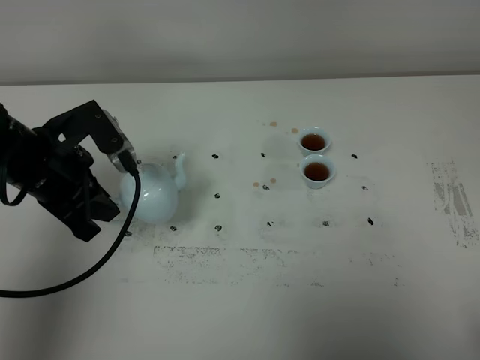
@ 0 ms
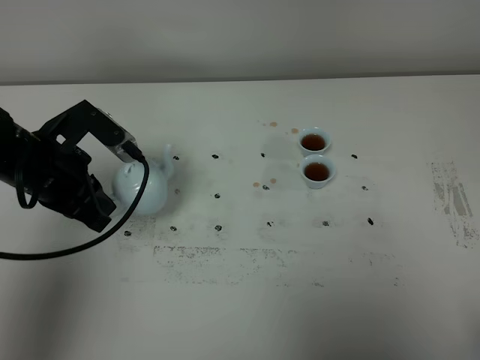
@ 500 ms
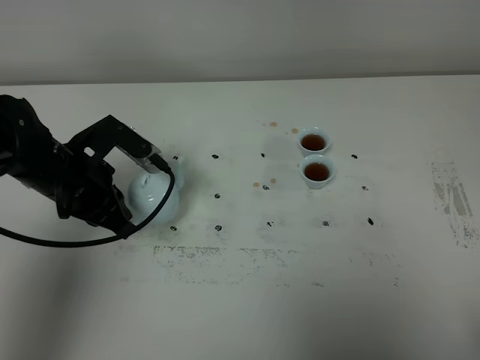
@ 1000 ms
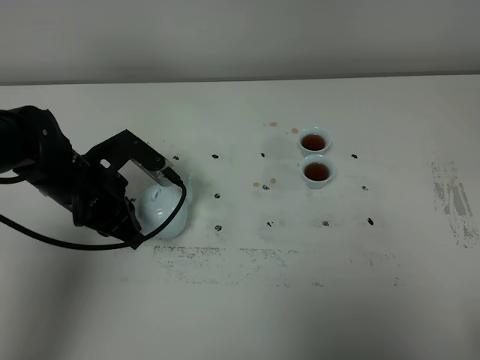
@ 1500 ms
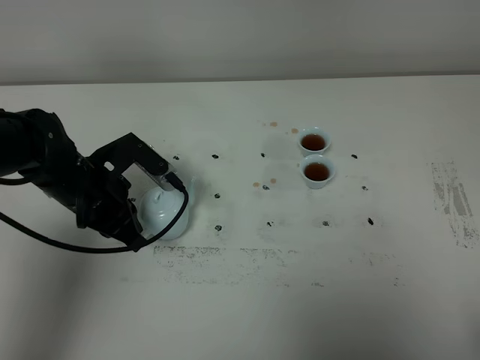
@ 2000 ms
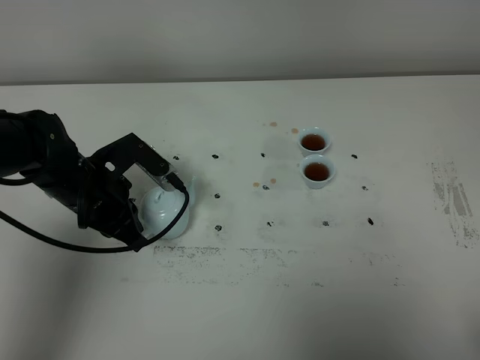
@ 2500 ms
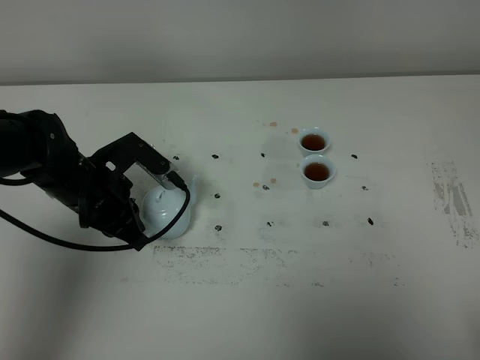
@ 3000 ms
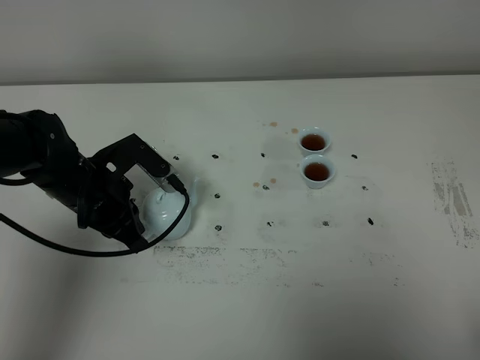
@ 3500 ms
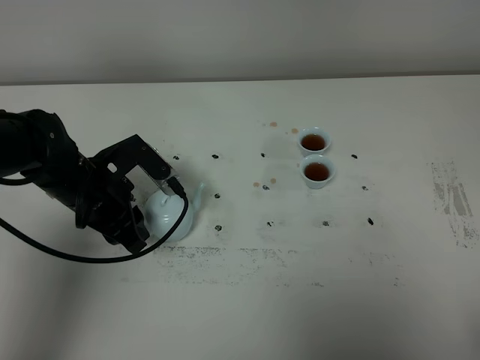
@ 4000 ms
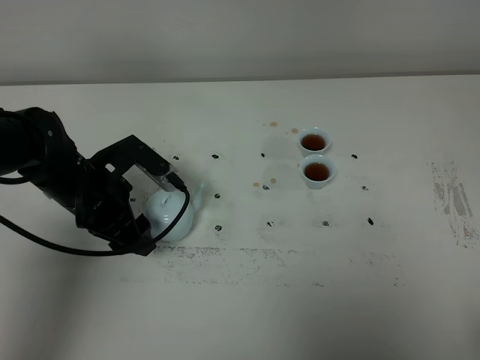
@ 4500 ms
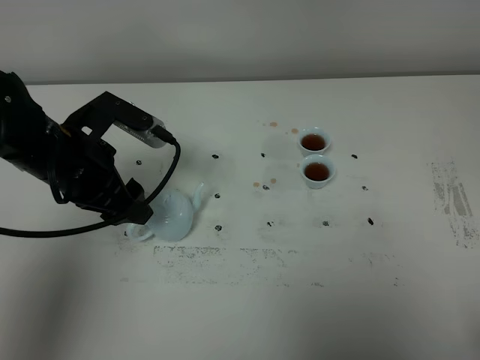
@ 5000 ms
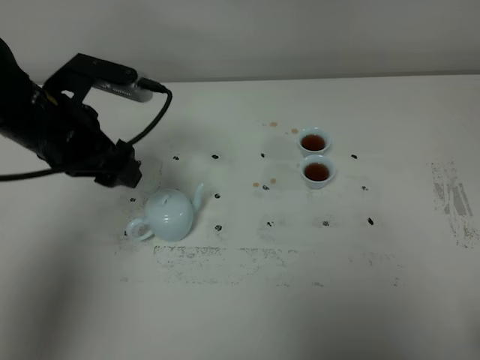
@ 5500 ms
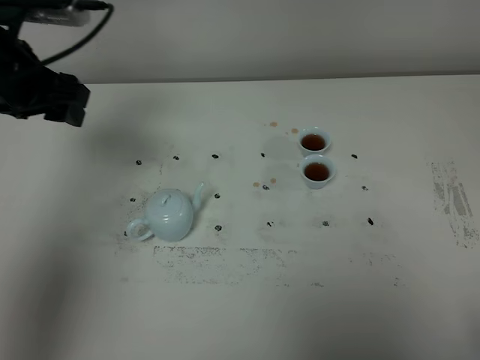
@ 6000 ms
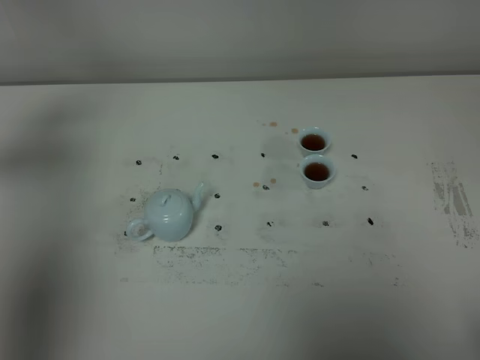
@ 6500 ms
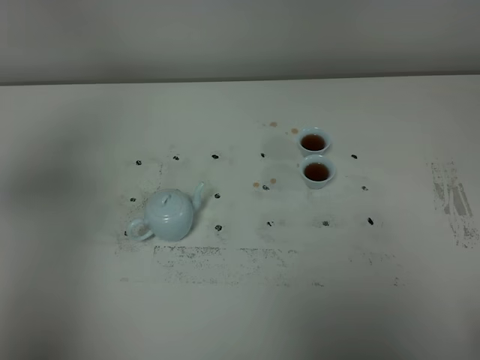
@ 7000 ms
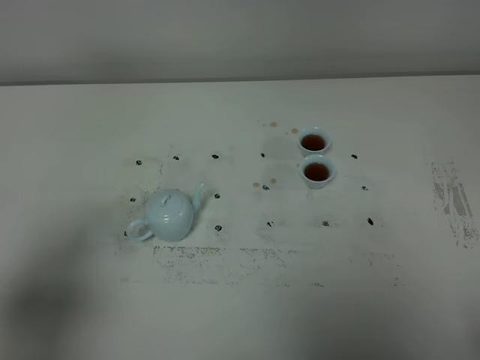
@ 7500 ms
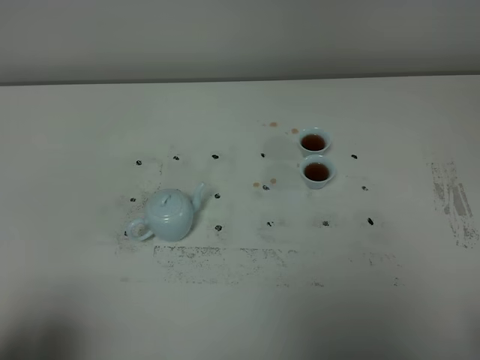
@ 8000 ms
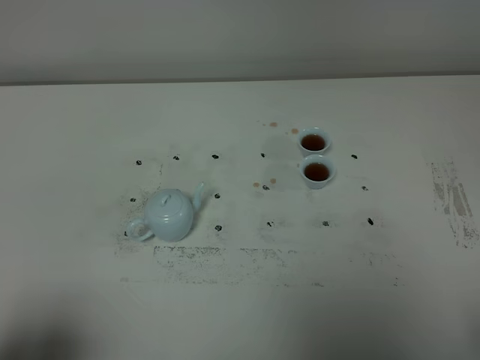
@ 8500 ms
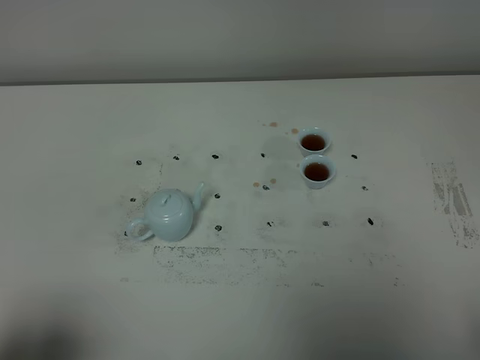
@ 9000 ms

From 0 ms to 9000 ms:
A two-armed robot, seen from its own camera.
Task of the whole recording: grasp the blue porcelain teapot and pour the tea into the two blue porcelain teacups one by one, put the blue porcelain teapot back in its original place.
From 0 ms to 2000 ms: The left gripper moves downward, roughly 5 cm.
From 2000 ms to 4500 ms: The left gripper opens its fingers.
From 4500 ms to 7000 ms: The left gripper moves upward, to the left and backward, about 30 cm.
From 7000 ms to 9000 ms: The left gripper is displaced backward and downward by some 25 cm.

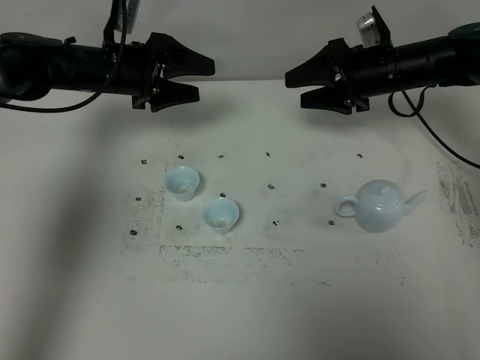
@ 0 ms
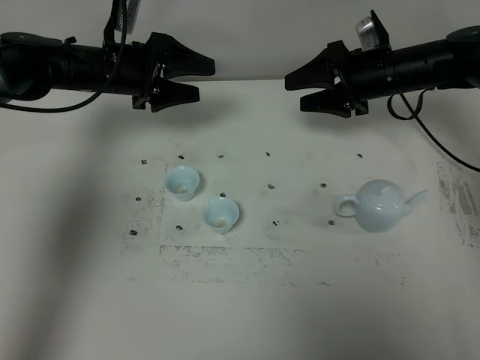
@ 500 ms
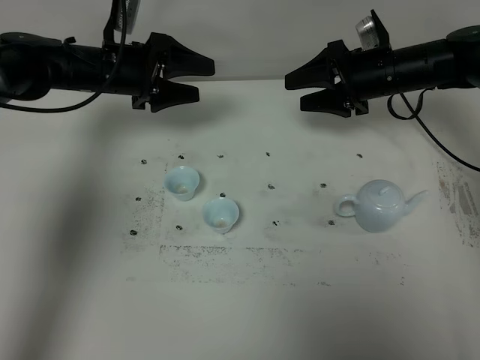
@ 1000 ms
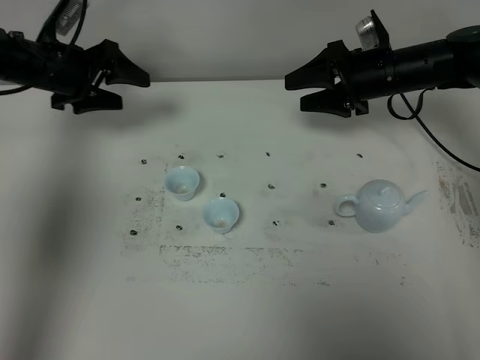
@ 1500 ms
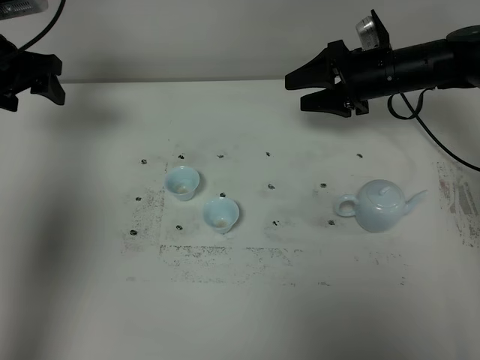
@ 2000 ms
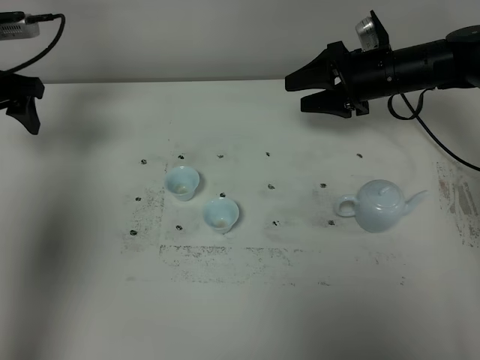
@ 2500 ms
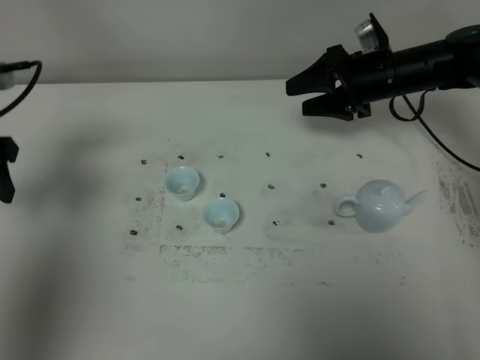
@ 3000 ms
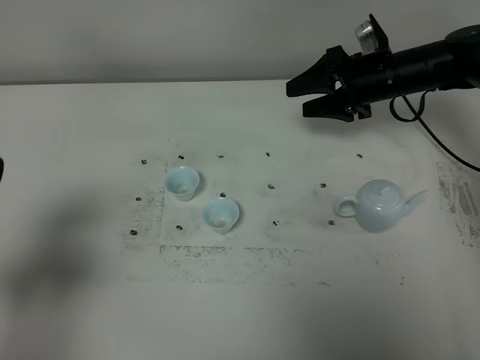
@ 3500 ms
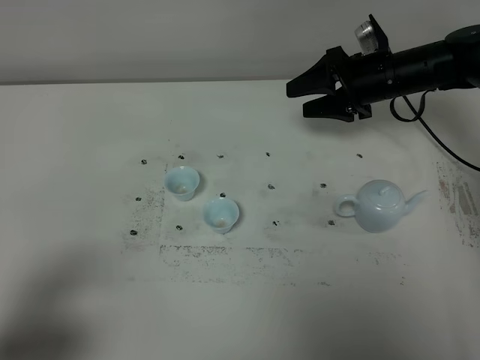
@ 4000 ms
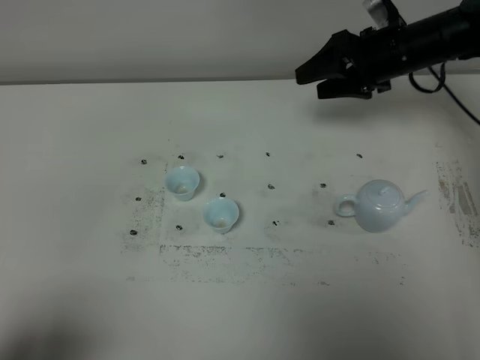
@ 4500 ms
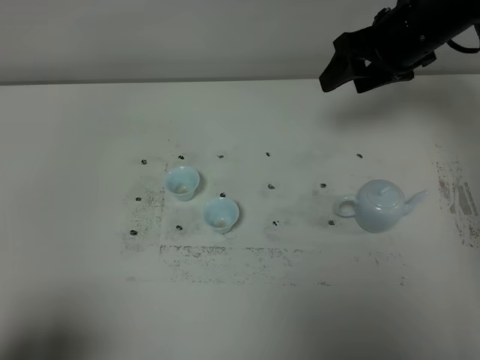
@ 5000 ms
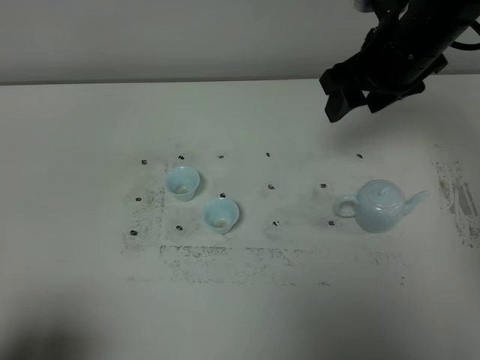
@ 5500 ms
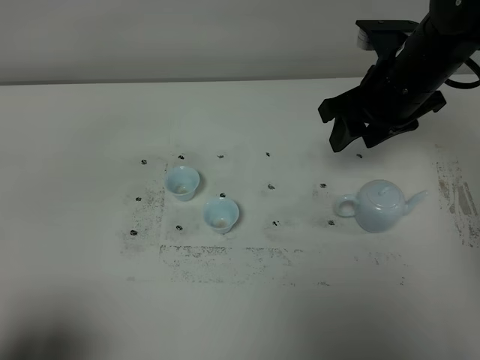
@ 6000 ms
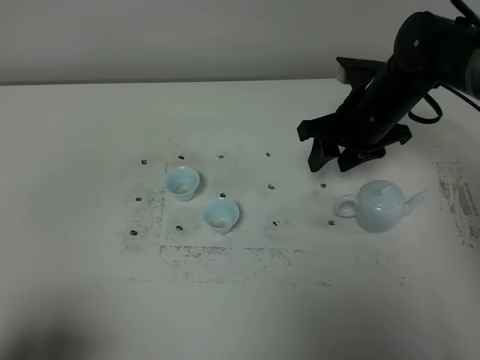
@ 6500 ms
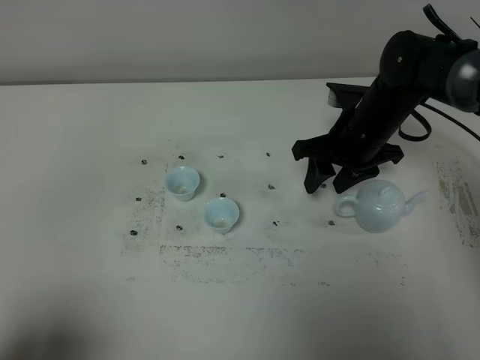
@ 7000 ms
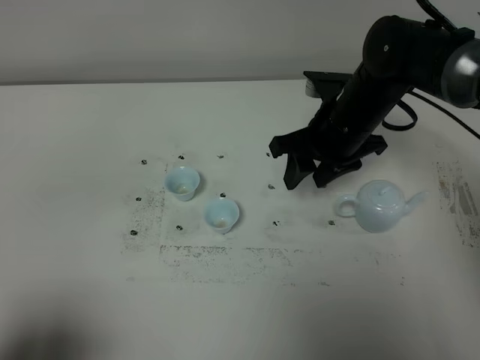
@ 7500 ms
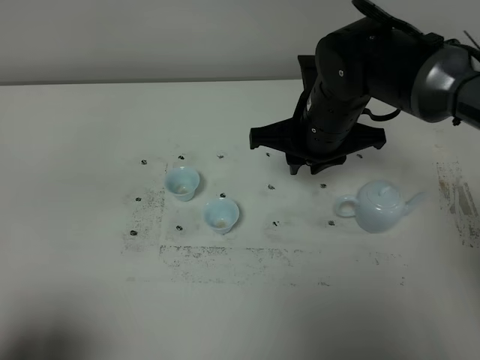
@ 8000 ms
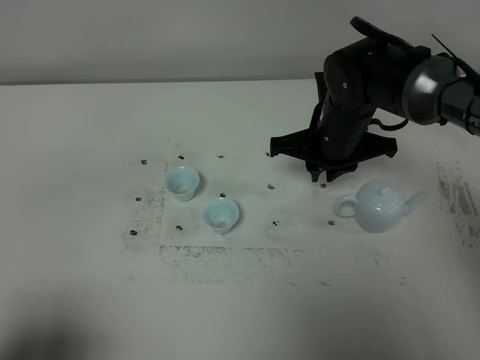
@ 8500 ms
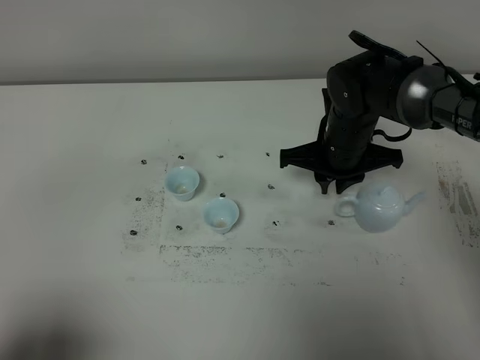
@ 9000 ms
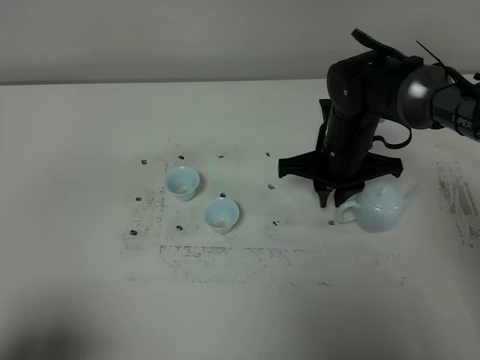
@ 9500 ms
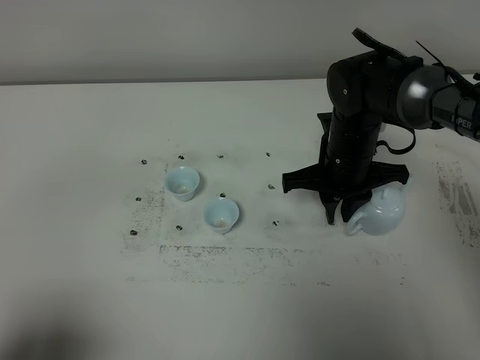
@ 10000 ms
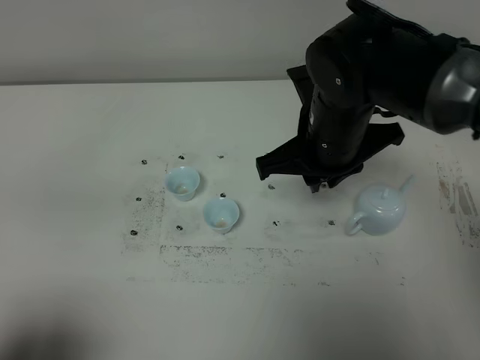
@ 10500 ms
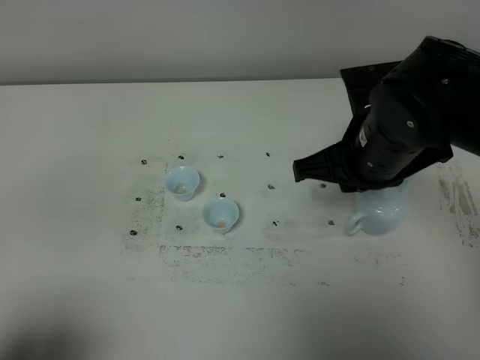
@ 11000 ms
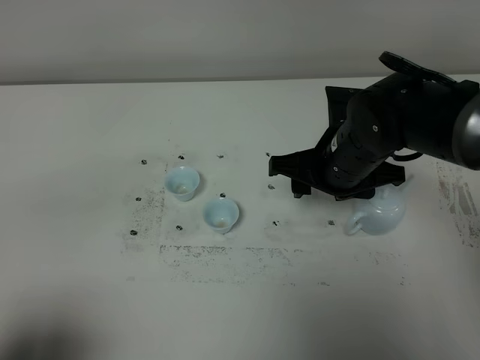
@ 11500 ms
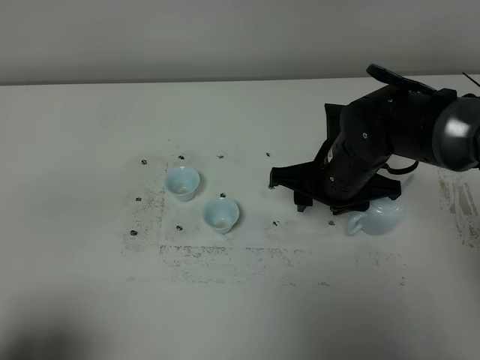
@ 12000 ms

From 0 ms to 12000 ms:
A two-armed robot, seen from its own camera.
Task of the whole recording: grasp the blue porcelain teapot and pour the tea into the two blue porcelain teacups one by one, put the blue porcelain teapot back in its original place.
From 0 ms to 2000 ms: The left gripper heads to the left and upward, covering approximately 15 cm.
From 2000 ms to 4000 ms: The left gripper moves backward, some 40 cm.
From 4000 ms to 6000 ms: The right gripper is displaced backward and upward by about 10 cm, while the left gripper heads backward, covering roughly 5 cm.
From 6000 ms to 8000 ms: The right gripper moves to the left, approximately 10 cm, and closes.
From 8000 ms to 10000 ms: The right gripper travels downward by some 5 cm.
From 10000 ms to 12000 ms: The right gripper travels upward and back again, approximately 10 cm each way, and opens.

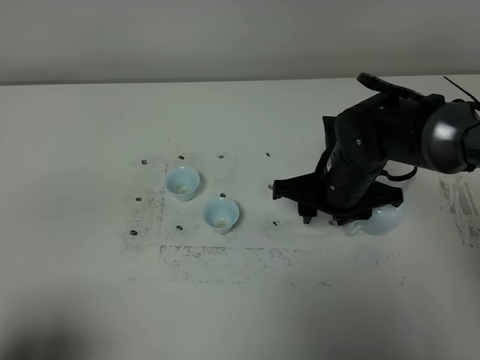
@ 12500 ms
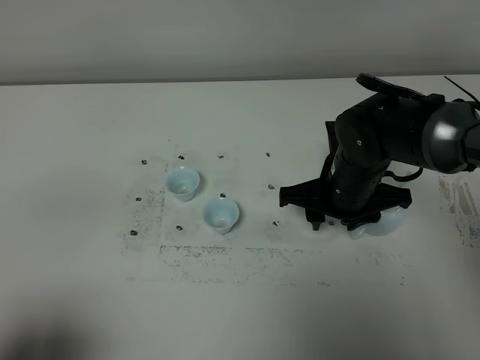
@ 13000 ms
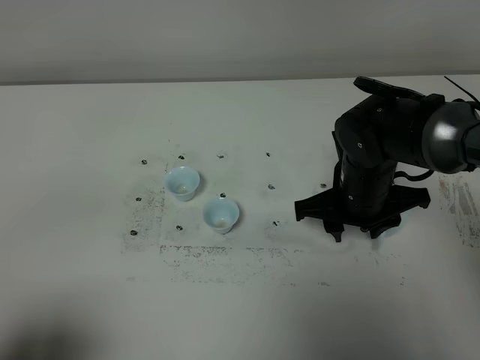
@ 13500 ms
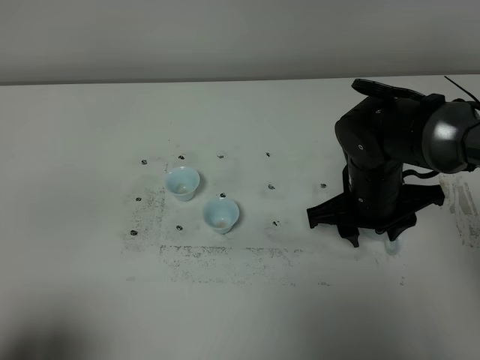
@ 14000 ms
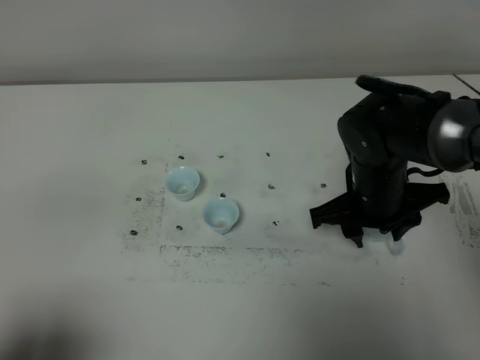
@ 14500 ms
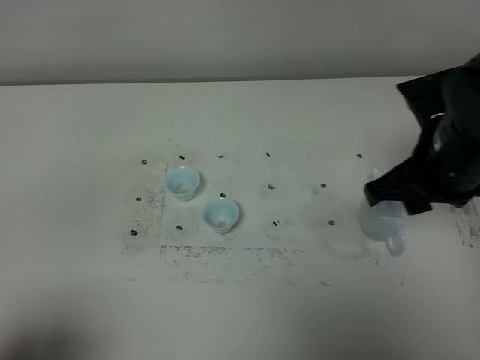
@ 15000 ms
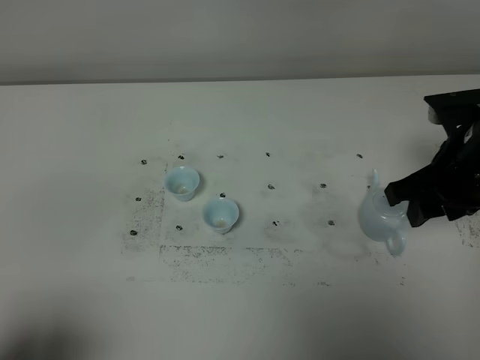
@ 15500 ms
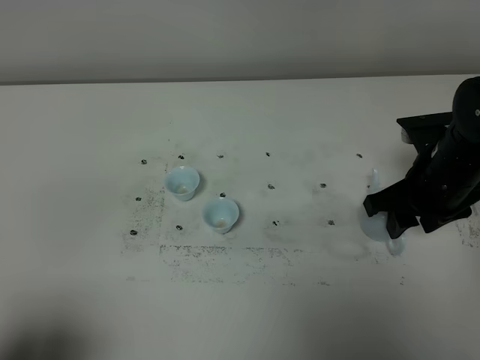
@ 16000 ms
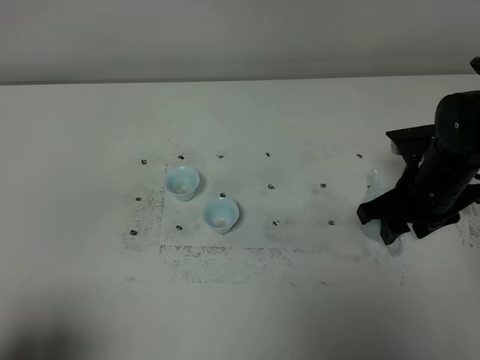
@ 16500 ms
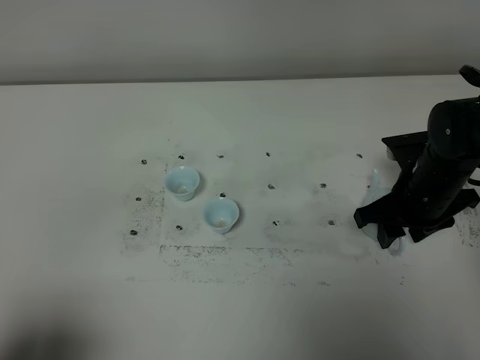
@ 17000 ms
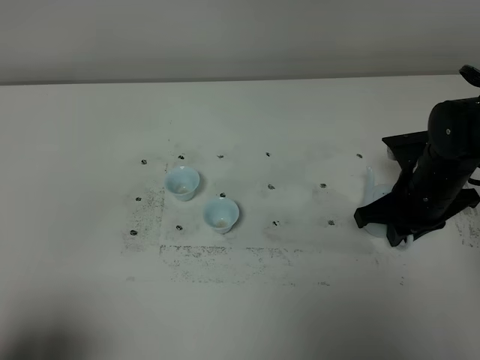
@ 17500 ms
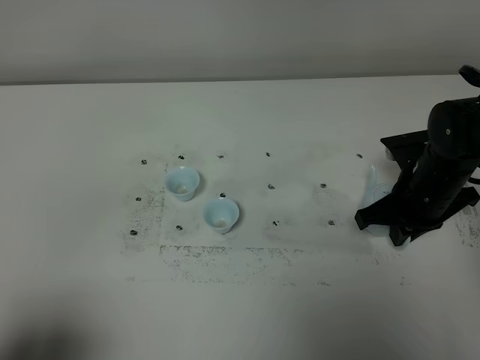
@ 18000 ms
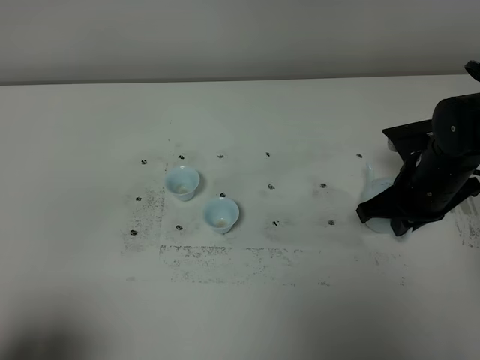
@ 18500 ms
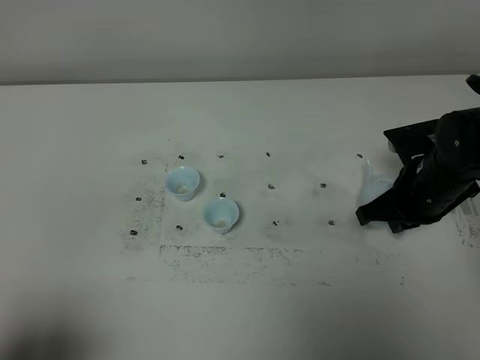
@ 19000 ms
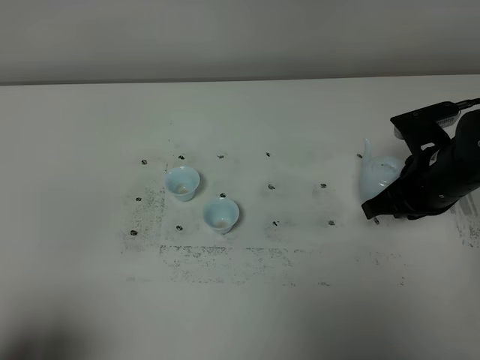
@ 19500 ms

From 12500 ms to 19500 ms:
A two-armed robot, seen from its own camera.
Task of the whole recording: grasp the blue porcelain teapot and pour the tea into the two blue porcelain teacups one by one, put the blue porcelain teapot back in its original place.
Step, from 12500 ms to 19500 ms: Pick up the teapot with the right gripper.
From 14500 ms to 16000 ms: The right gripper moves to the right, some 10 cm, and reaches approximately 10 cm upward, then returns.
From 16000 ms to 17500 ms: The right gripper closes its fingers.
From 17500 ms to 19500 ms: The grippers move only a little.
